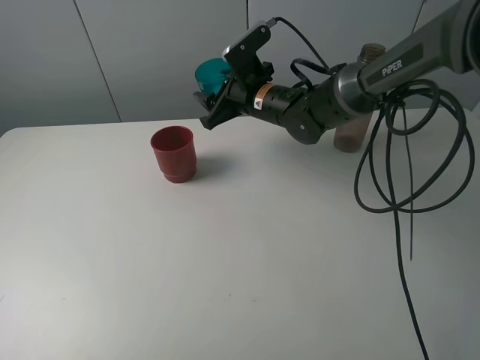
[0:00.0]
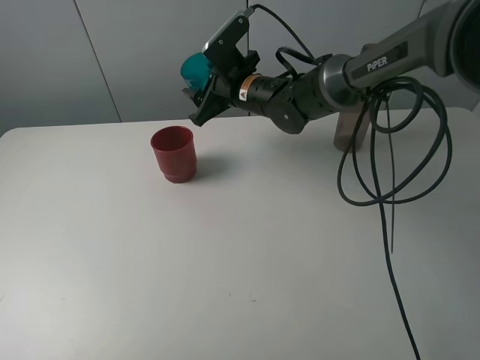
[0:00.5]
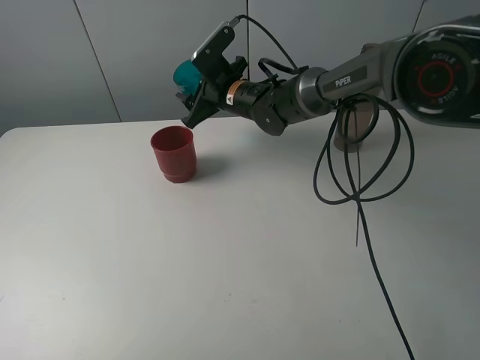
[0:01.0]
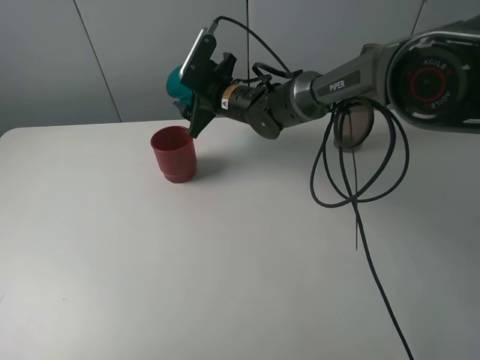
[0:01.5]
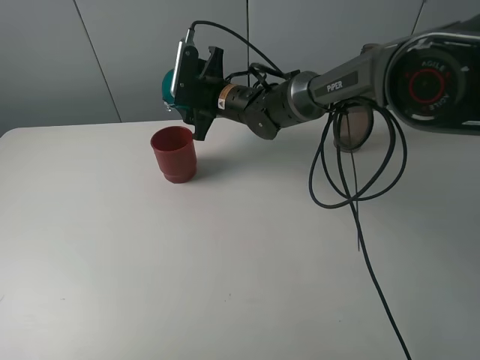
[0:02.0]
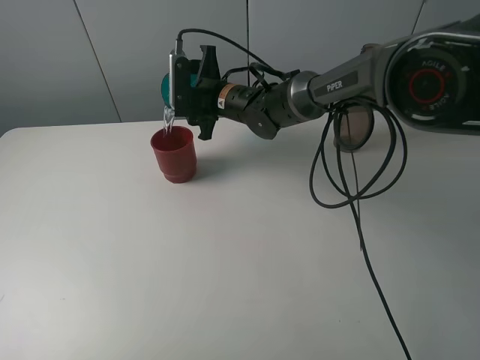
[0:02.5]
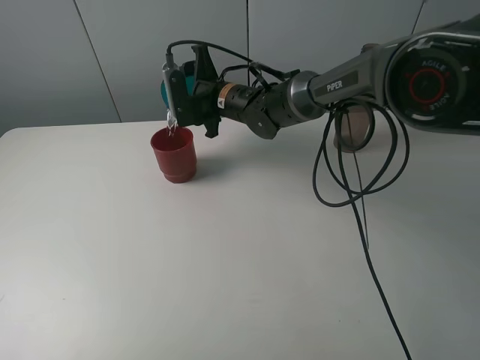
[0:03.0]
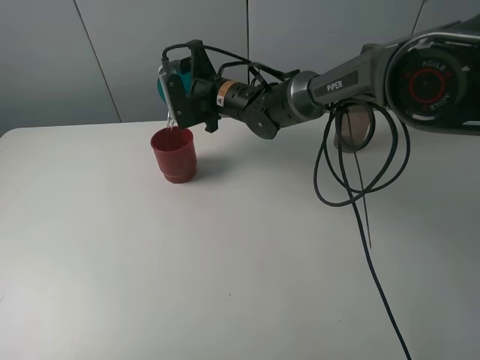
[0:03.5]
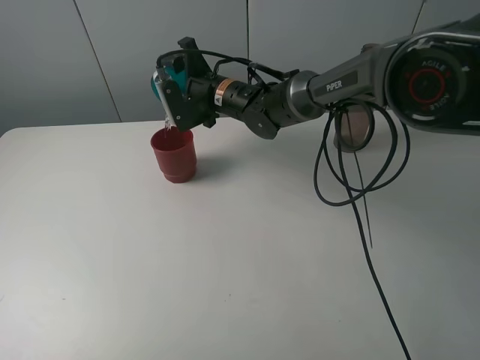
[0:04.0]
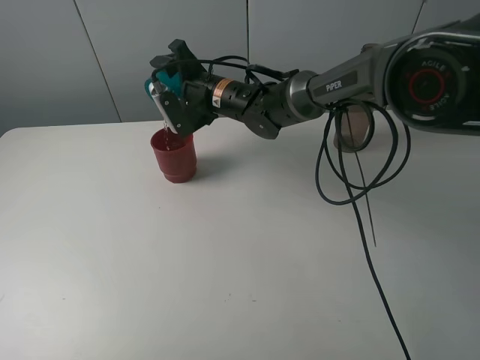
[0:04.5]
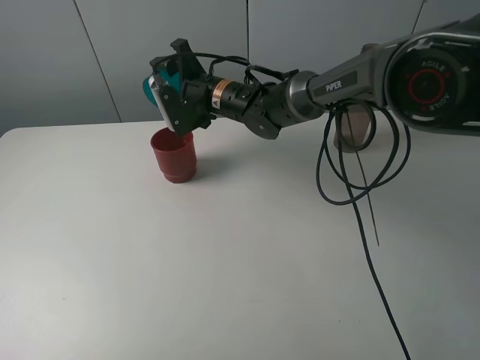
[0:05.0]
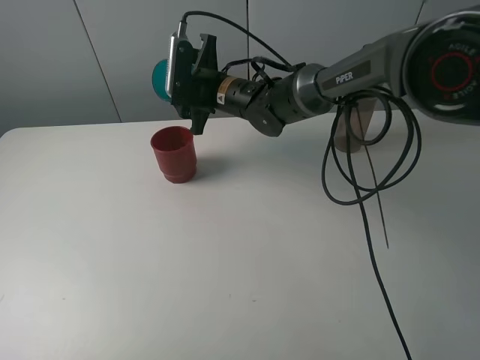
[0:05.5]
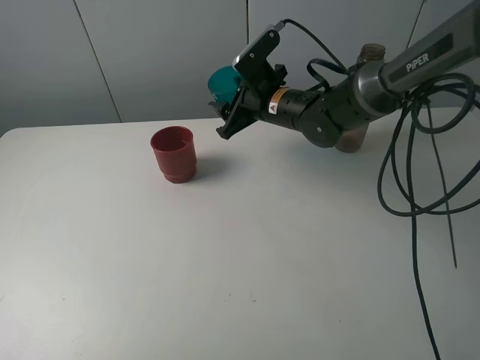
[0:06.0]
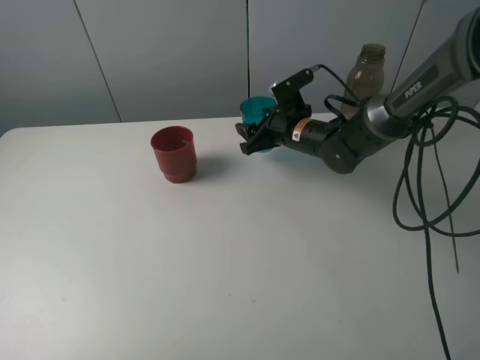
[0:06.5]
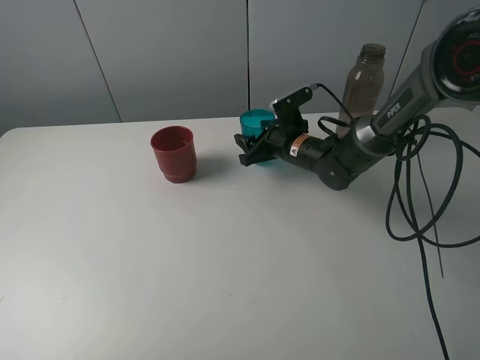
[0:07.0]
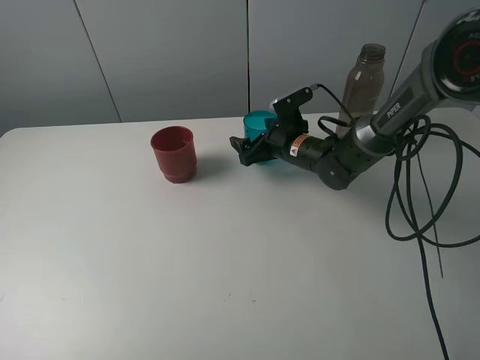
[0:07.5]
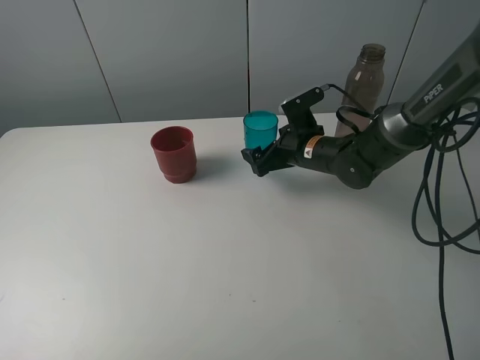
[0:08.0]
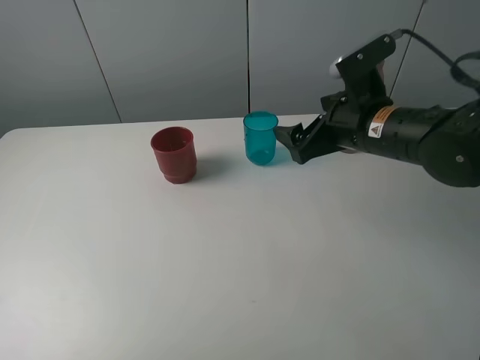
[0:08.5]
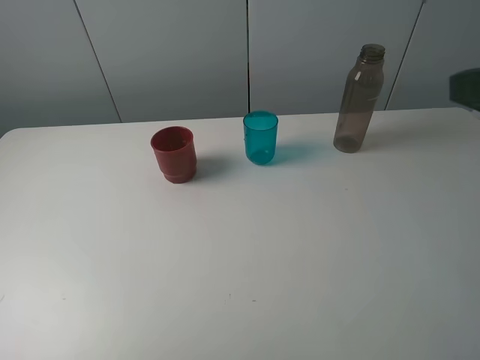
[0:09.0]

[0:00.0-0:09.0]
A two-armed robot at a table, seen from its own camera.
Task of the whole recording: pick up the bottle and pour water into the cup, then pick up the cup containing water and pour it into another cup.
Step, 0:00.0 to 0:05.0: Pour water from blue cup to red cup with the right gripper.
Step, 0:05.5 to 0:07.5: Place the blue cup with the right gripper.
0:00.0 to 0:02.0: The right gripper goes some 5 cm to the left.
0:04.5 to 0:07.0: The right gripper moves to the right and downward, about 15 cm.
0:07.0 to 0:09.0: The right gripper travels backward, upward and to the right by about 40 cm, and opens.
